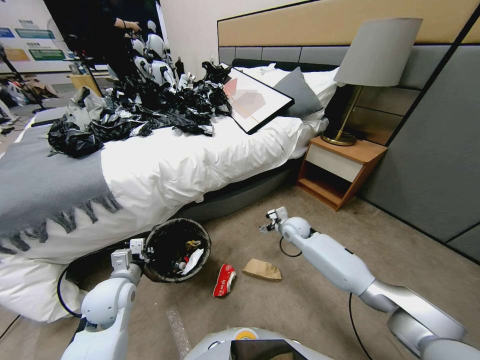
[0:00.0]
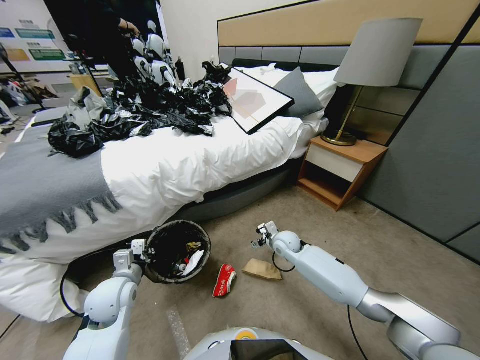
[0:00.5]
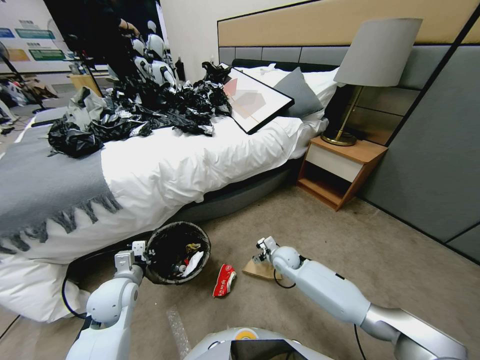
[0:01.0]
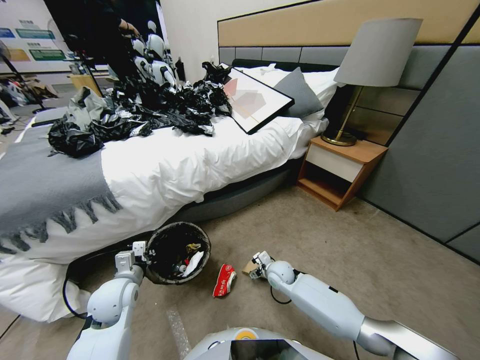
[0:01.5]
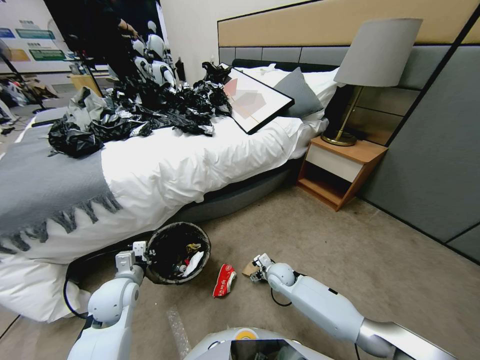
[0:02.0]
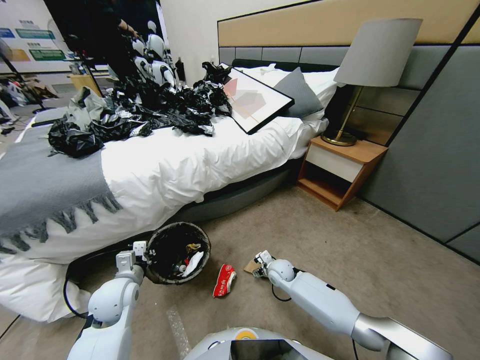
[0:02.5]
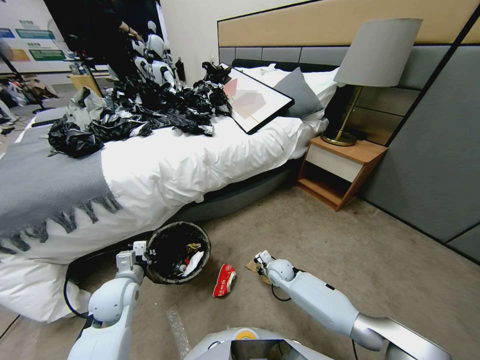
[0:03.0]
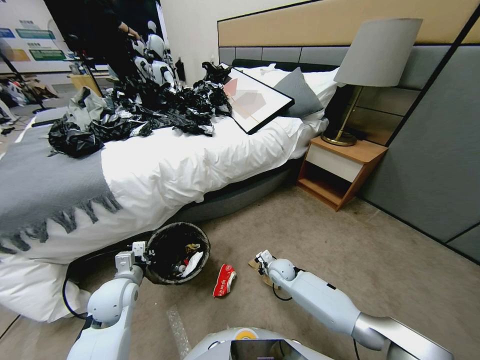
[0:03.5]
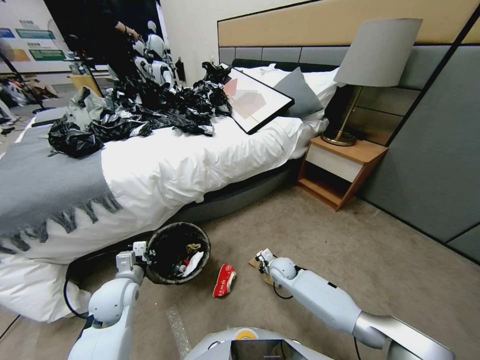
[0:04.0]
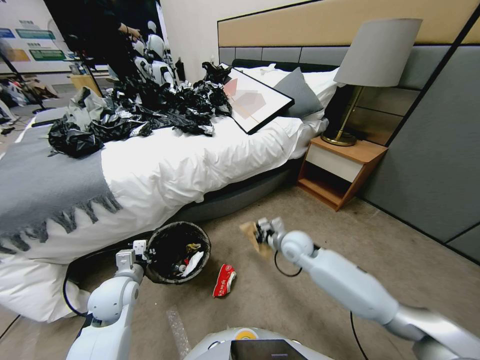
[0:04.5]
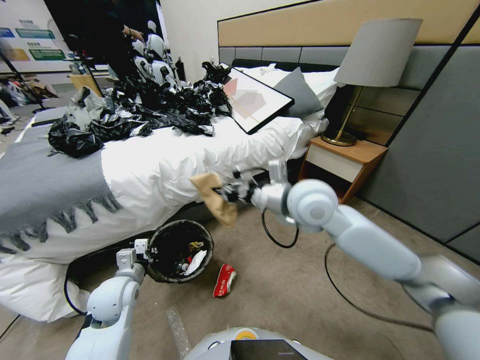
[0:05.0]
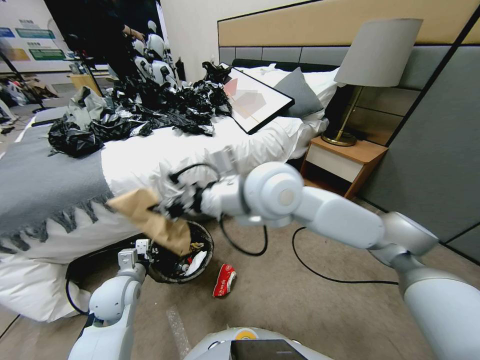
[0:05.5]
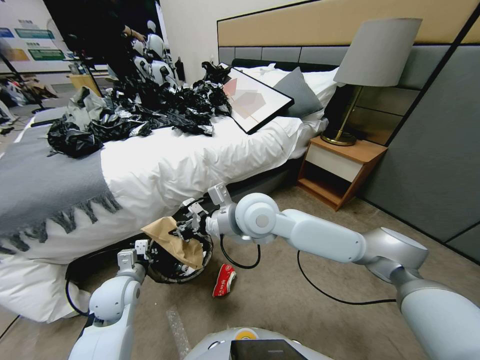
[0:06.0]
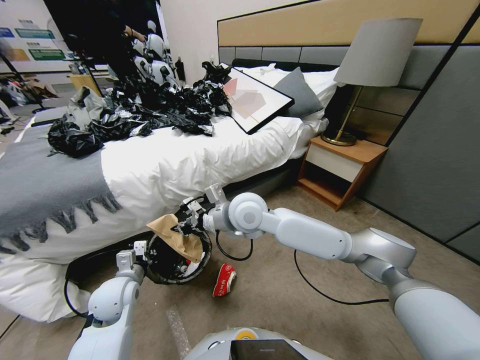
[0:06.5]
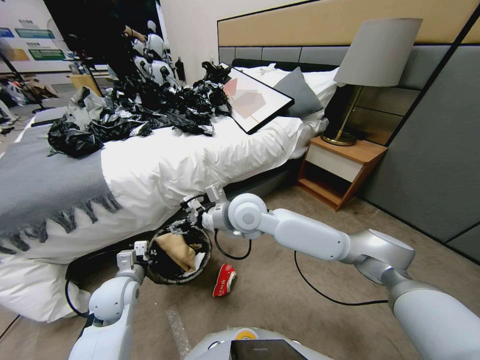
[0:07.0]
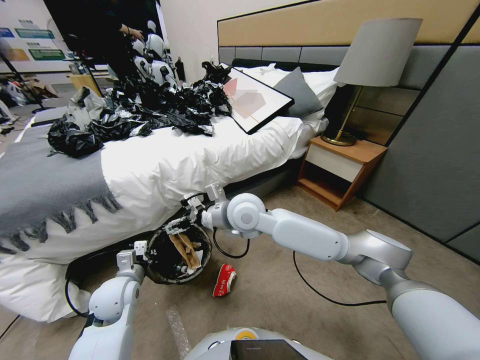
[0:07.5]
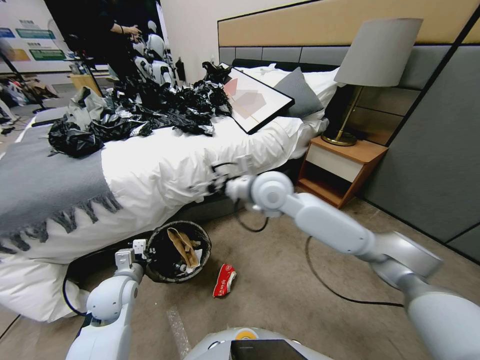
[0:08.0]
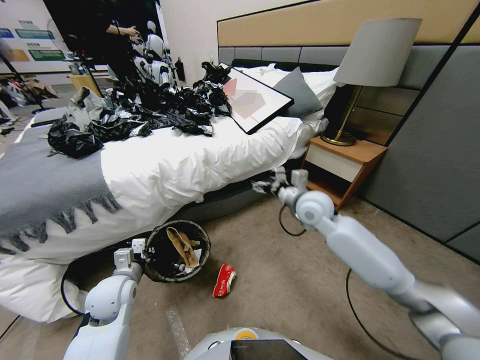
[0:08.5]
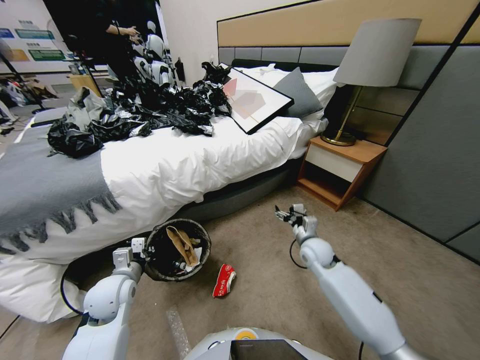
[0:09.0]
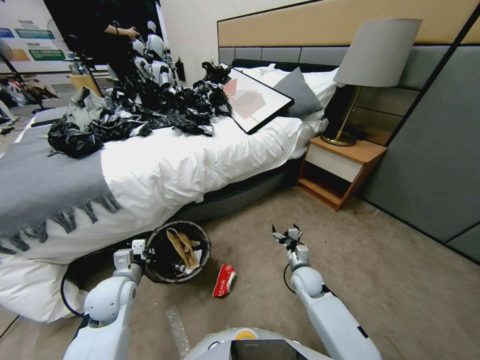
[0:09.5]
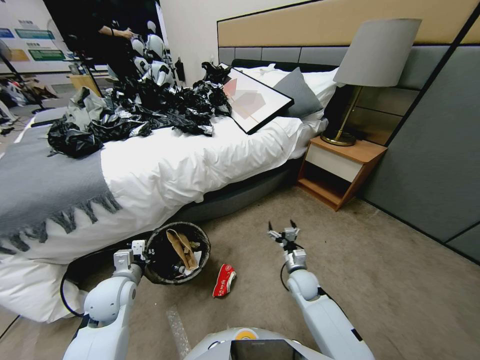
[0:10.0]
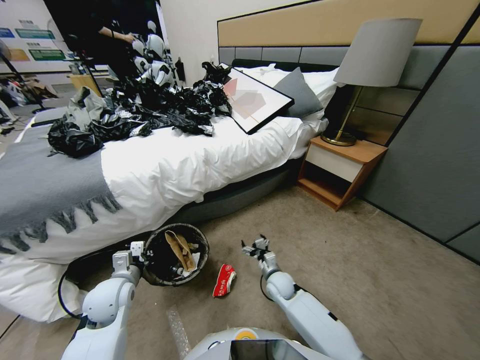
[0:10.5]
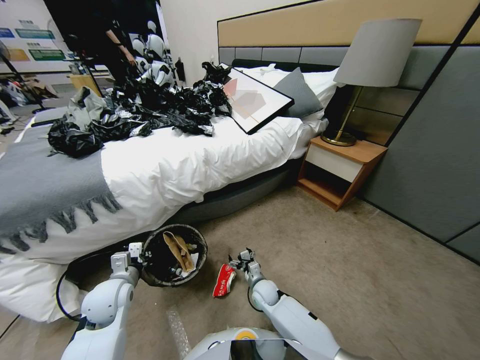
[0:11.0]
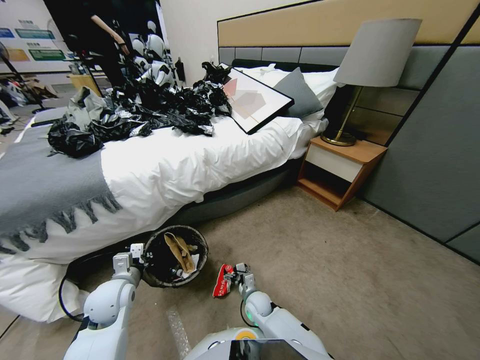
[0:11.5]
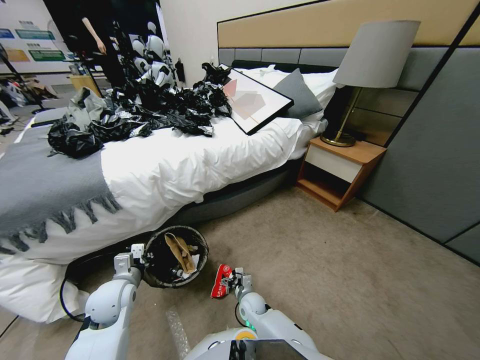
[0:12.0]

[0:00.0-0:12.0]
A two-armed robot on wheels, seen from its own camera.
Task of the whole recording: Pick up the trash bin, then pick up the garbage from the floor and place it into the trash bin.
0:00.0 to 0:02.0: The right gripper is displaced downward and backward by roughly 15 cm.
0:02.0 to 0:04.0: The right gripper closes.
0:04.0 to 0:06.0: The right gripper heads upward, covering roughly 35 cm.
0:06.0 to 0:08.0: The right gripper shifts some 10 cm to the right and forward, and opens up.
0:08.0 to 0:10.0: The right gripper shifts roughly 35 cm downward.
0:10.0 to 0:12.0: The right gripper goes some 20 cm to the left and downward.

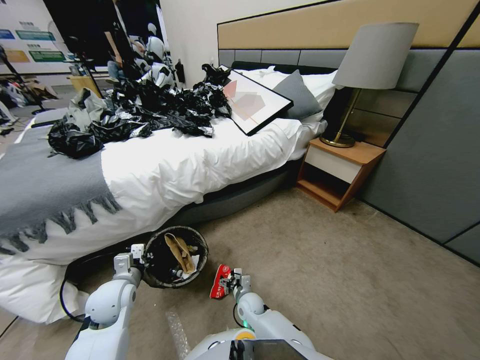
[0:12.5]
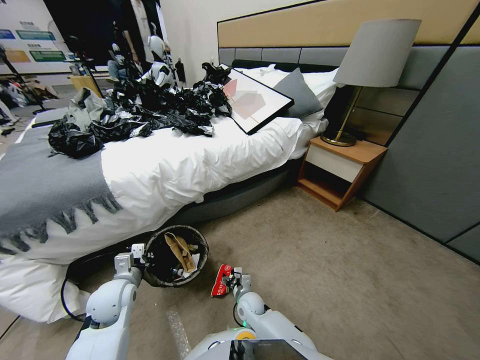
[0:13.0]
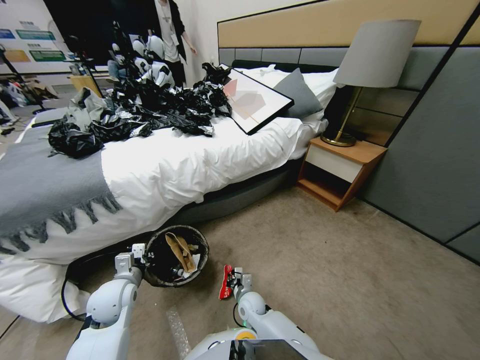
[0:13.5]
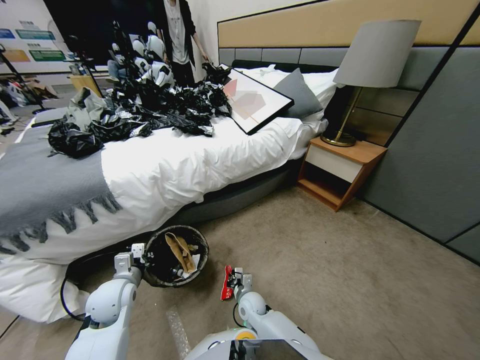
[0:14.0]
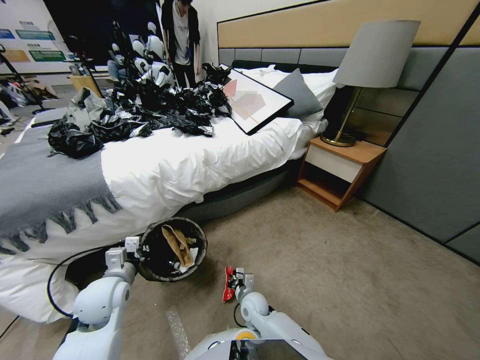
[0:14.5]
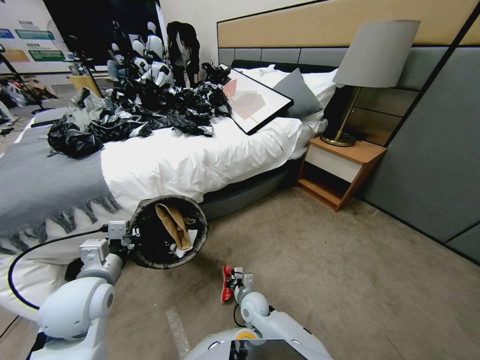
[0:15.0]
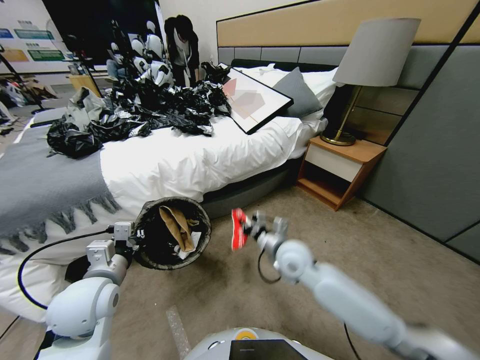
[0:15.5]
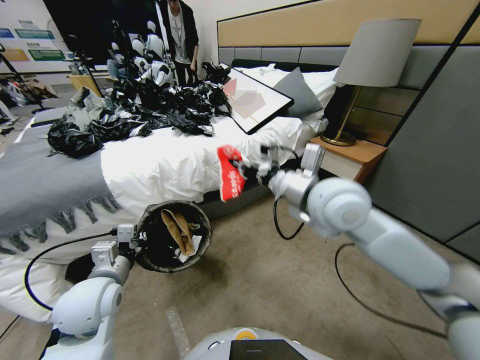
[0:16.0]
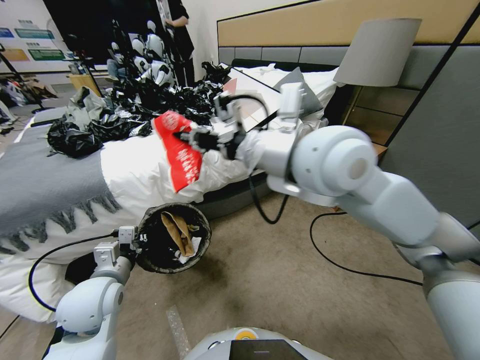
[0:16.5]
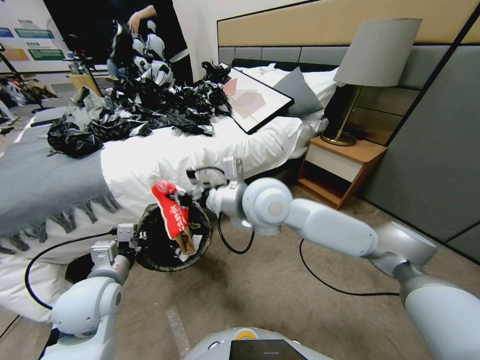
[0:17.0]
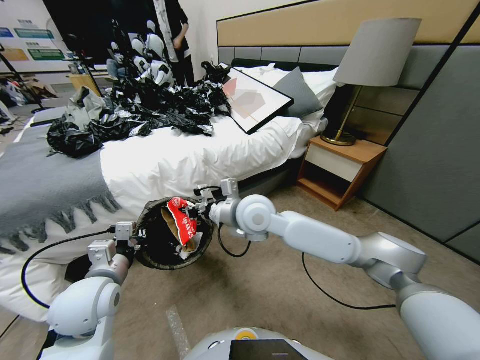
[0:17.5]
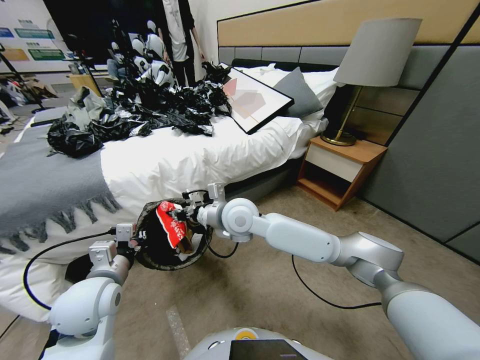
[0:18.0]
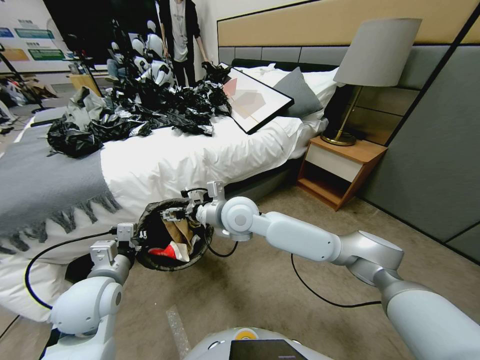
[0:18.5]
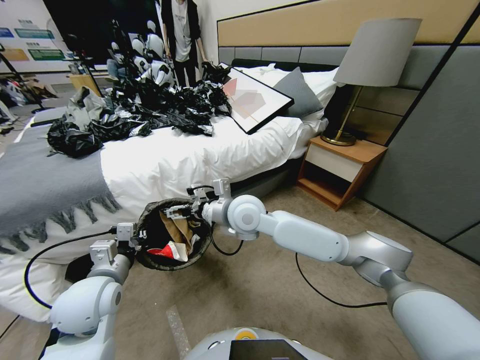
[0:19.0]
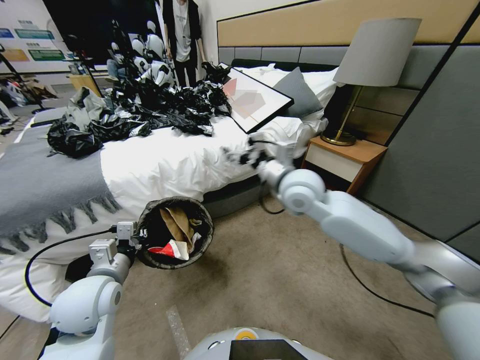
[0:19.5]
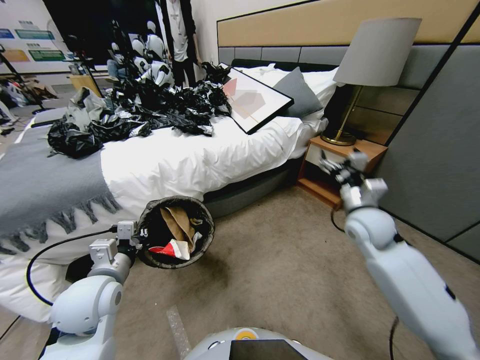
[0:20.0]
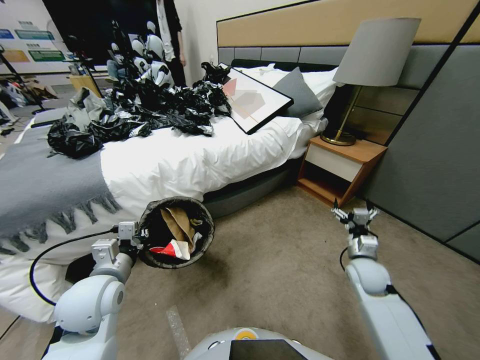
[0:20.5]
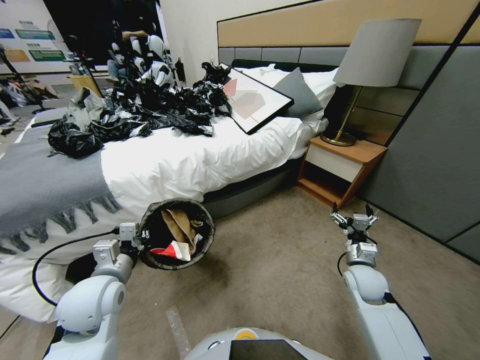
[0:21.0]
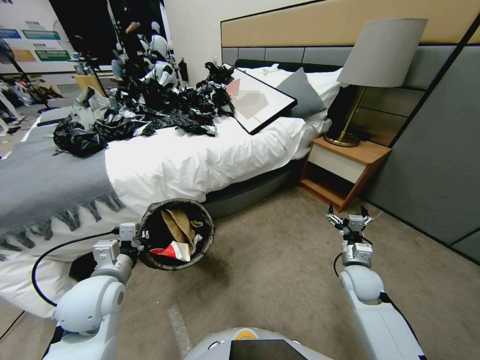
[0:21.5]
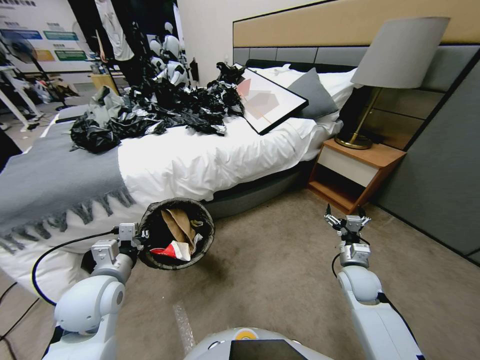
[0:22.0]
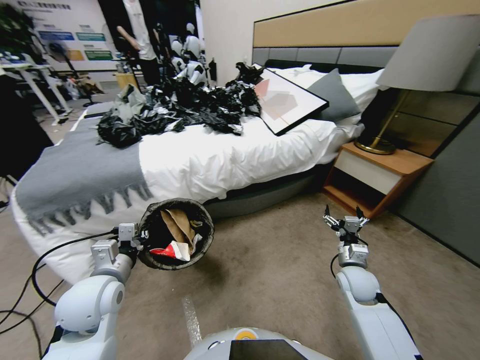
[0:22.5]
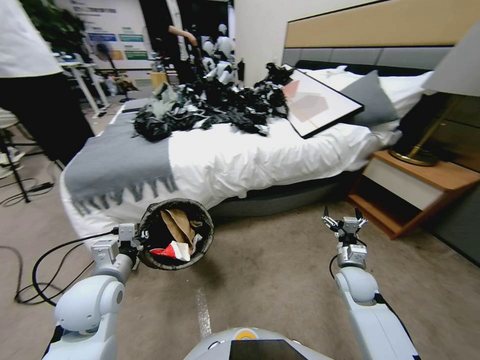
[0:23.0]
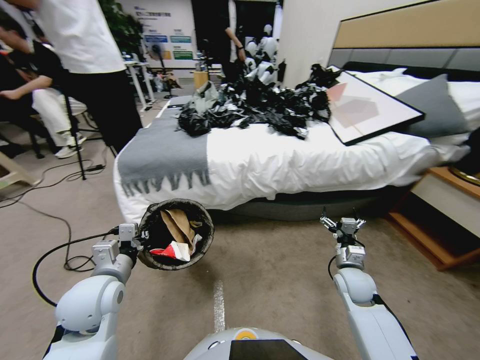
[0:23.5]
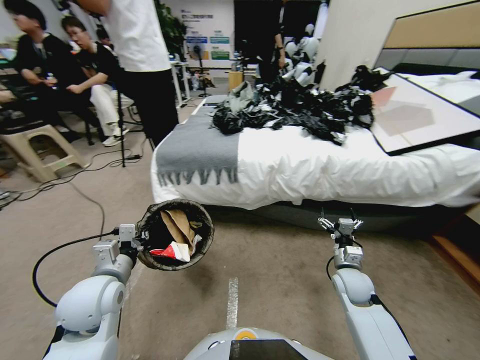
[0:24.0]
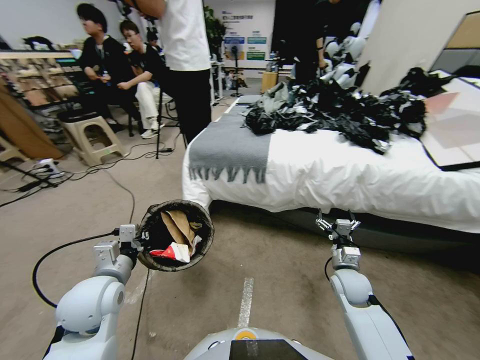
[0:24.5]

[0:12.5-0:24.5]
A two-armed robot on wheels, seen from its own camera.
Task of the whole recording: Pick up the trash bin, then pick up the garbage from the floor and place it into the trash bin.
0:12.5 to 0:14.5: The right gripper closes its fingers. Meanwhile the left gripper goes some 5 cm upward.
0:14.5 to 0:16.5: The right gripper shifts roughly 50 cm upward.
0:16.5 to 0:18.5: The right gripper goes roughly 20 cm downward and to the left, and opens.
0:18.5 to 0:20.5: The right gripper goes roughly 40 cm to the right and downward.

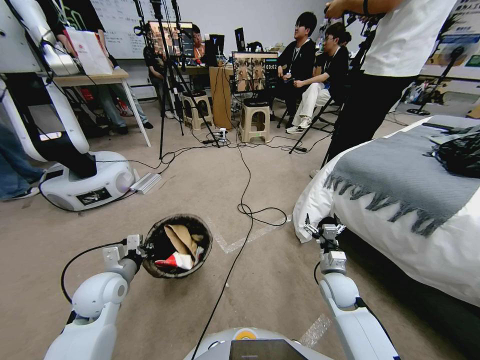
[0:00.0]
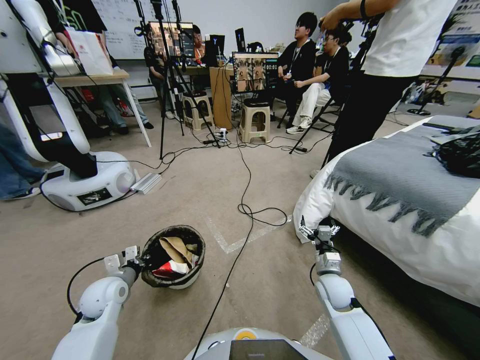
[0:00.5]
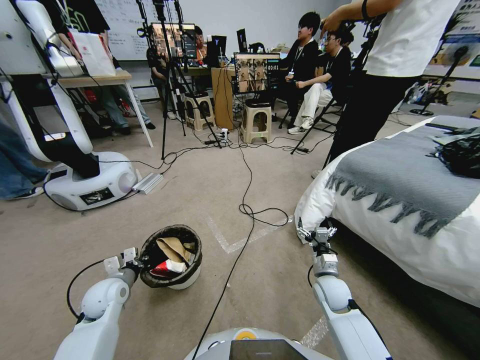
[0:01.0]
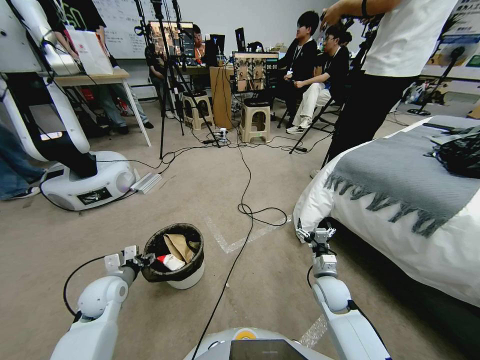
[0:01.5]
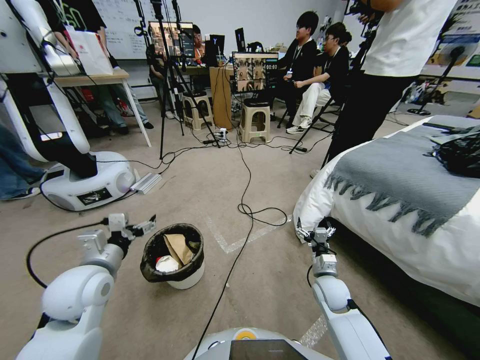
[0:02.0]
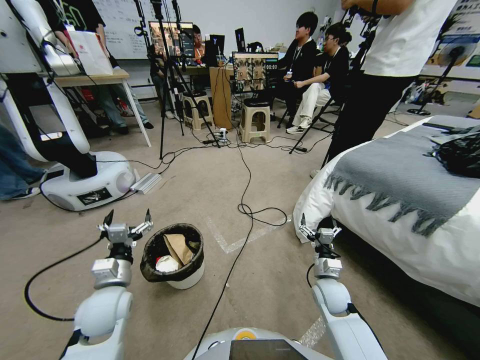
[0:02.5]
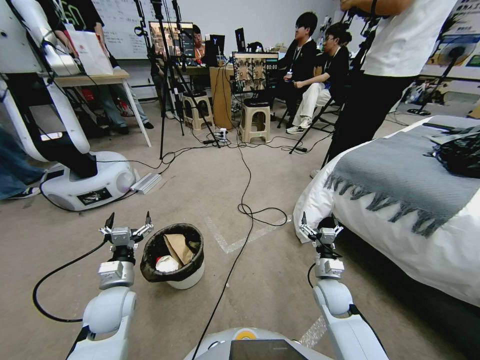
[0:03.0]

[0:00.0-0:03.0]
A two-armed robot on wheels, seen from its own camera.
Task of the whole recording: Pick up the trash bin, then pick up the garbage from the floor and place it into the trash bin.
0:00.0 to 0:01.5: The left gripper opens up.
0:01.5 to 0:03.0: The left gripper reaches roughly 10 cm upward, then returns.
